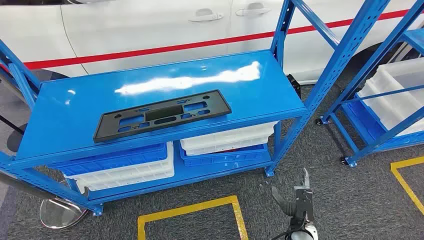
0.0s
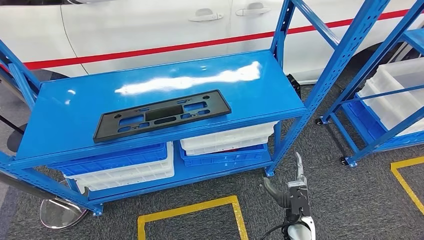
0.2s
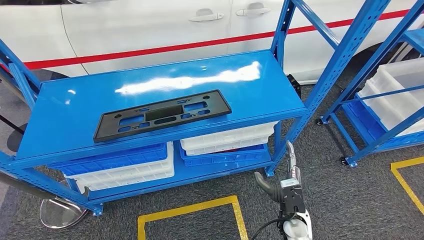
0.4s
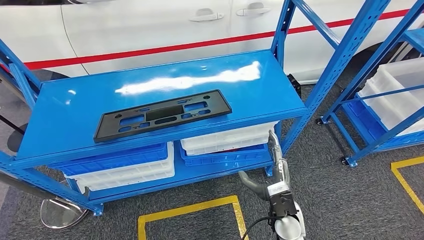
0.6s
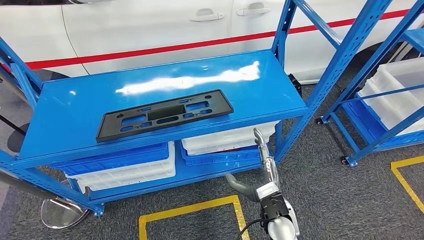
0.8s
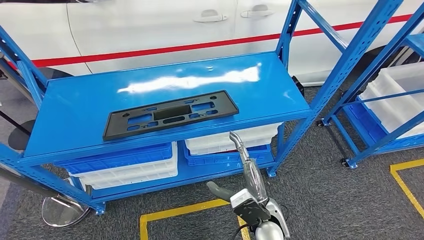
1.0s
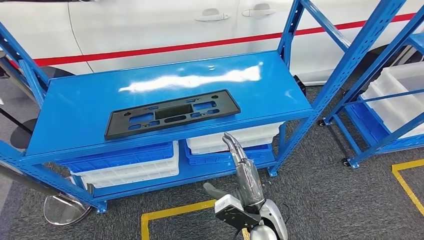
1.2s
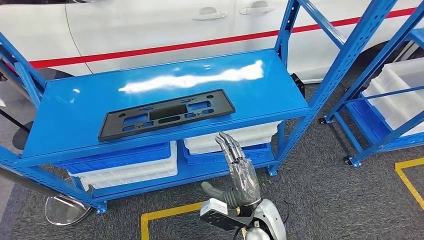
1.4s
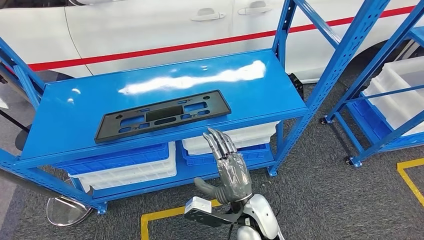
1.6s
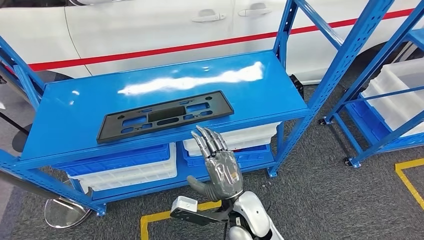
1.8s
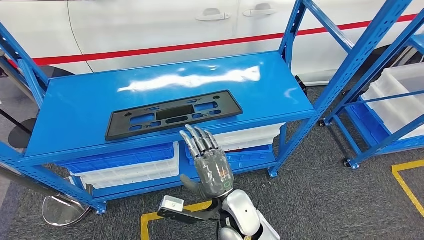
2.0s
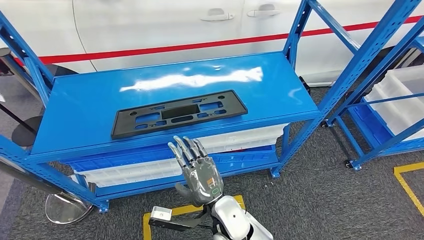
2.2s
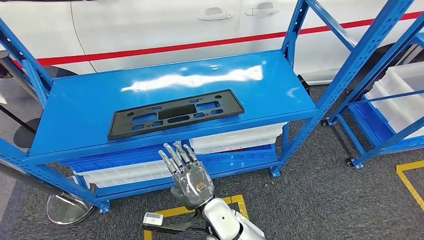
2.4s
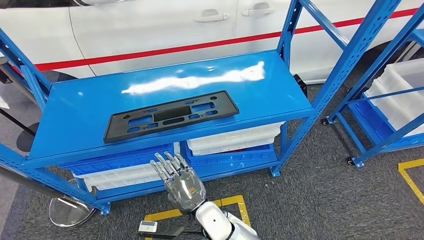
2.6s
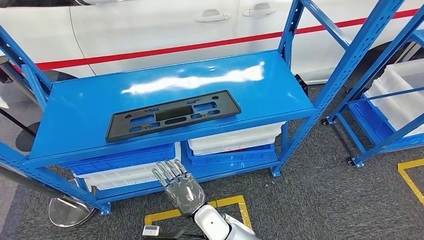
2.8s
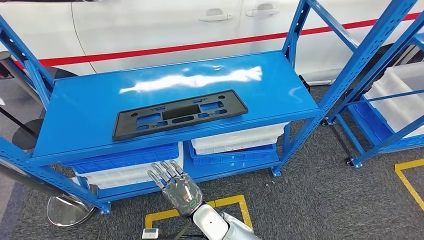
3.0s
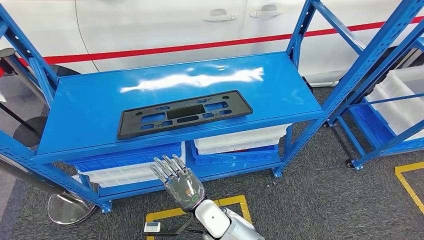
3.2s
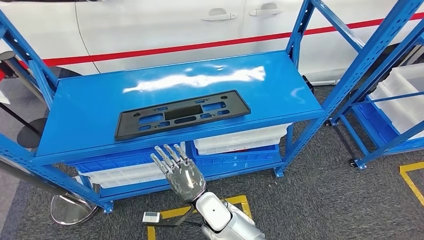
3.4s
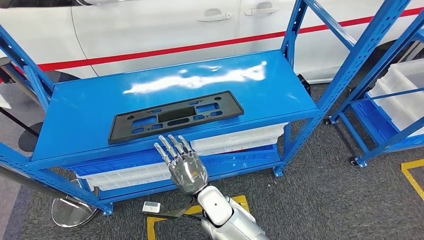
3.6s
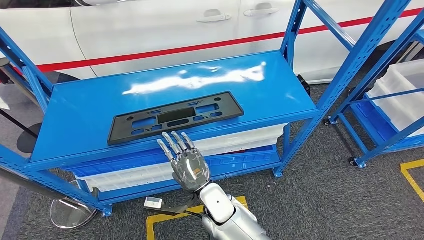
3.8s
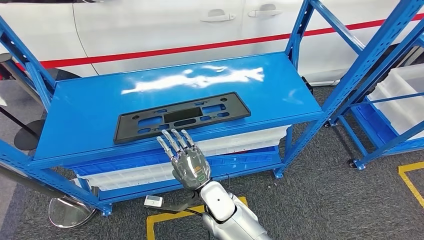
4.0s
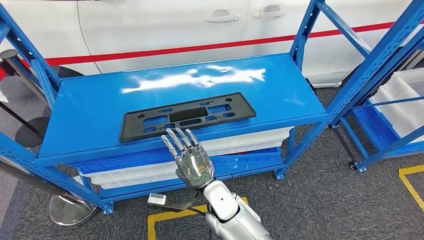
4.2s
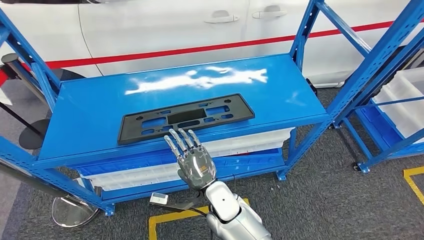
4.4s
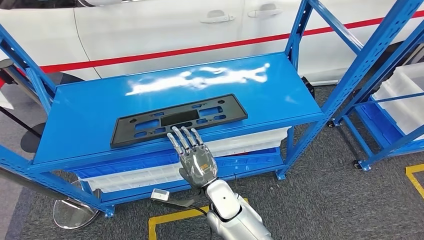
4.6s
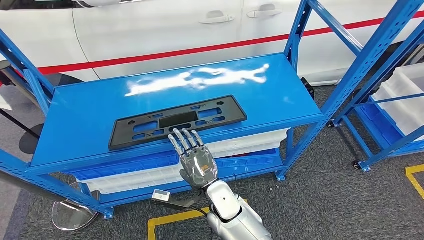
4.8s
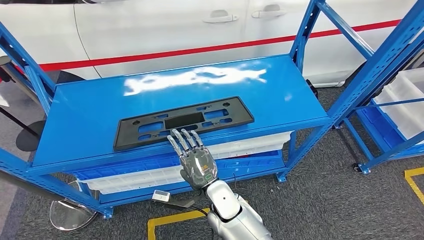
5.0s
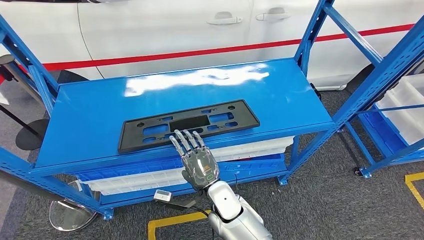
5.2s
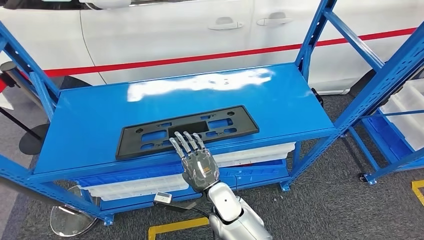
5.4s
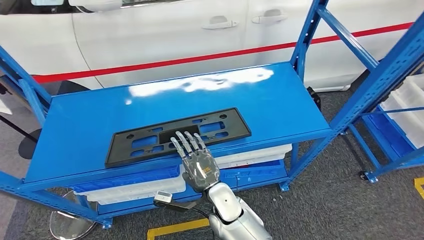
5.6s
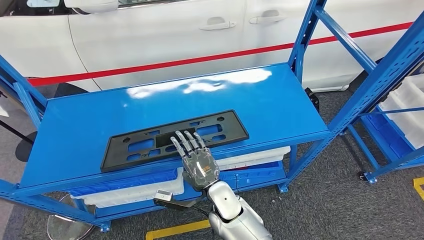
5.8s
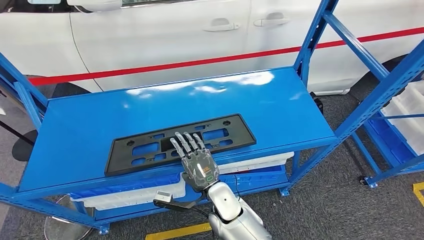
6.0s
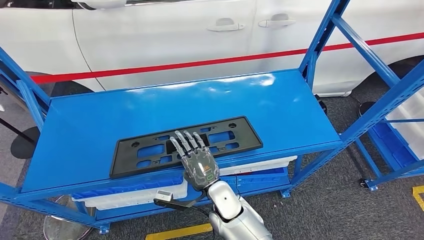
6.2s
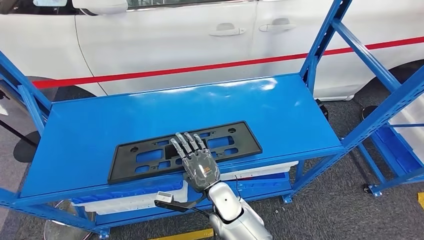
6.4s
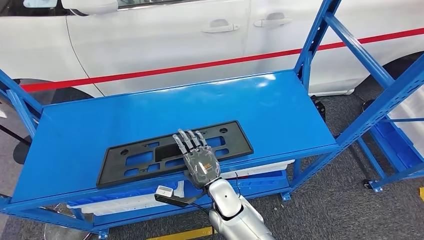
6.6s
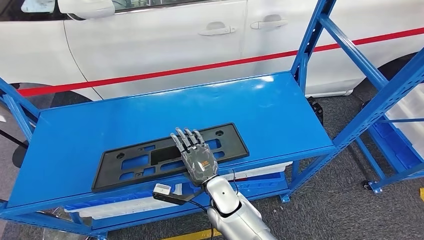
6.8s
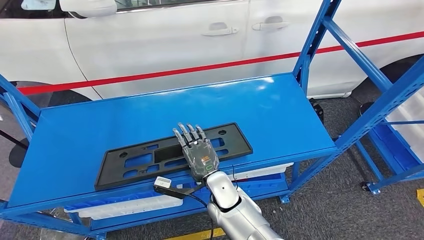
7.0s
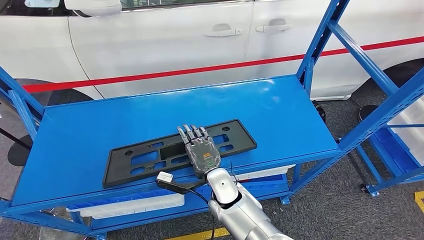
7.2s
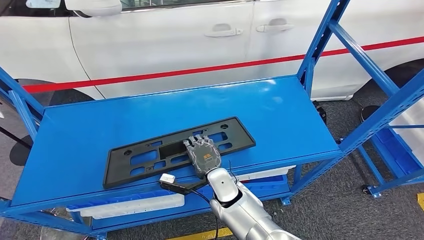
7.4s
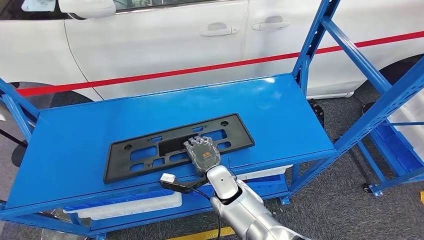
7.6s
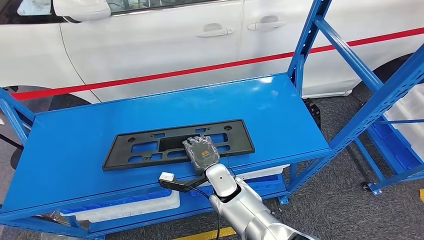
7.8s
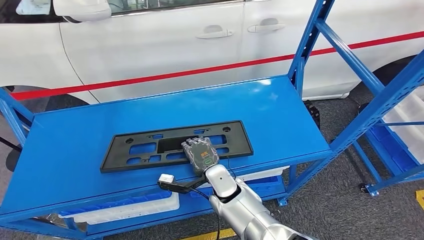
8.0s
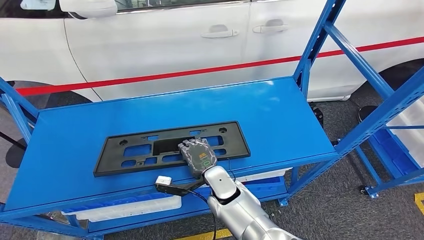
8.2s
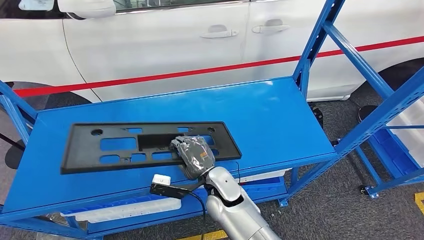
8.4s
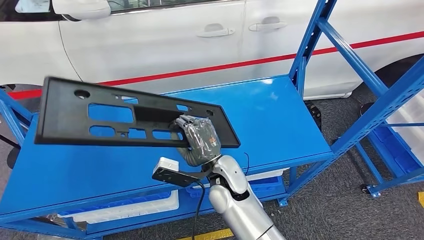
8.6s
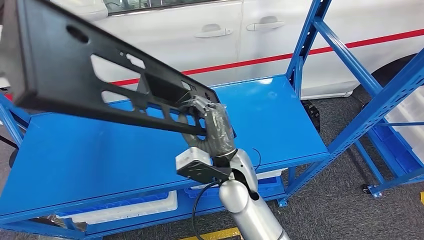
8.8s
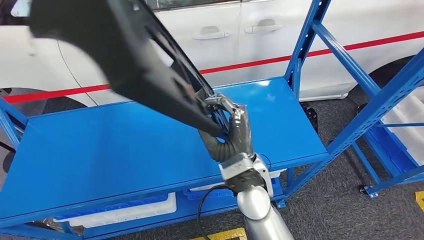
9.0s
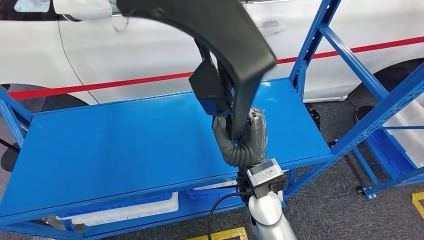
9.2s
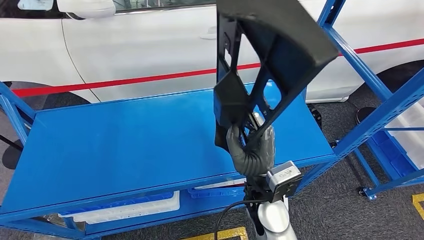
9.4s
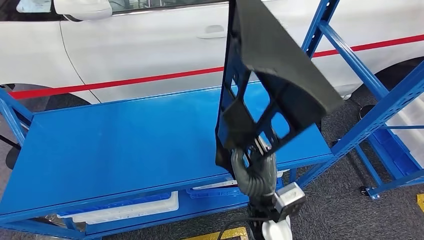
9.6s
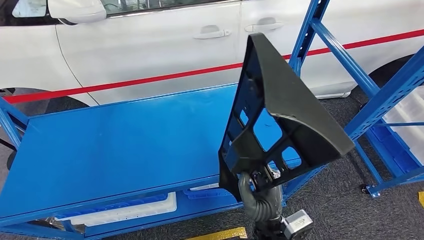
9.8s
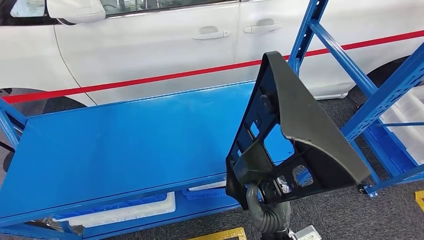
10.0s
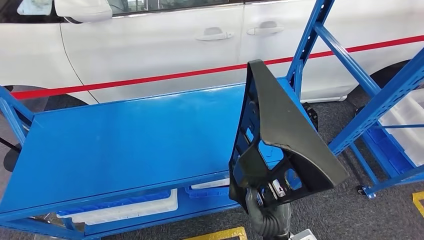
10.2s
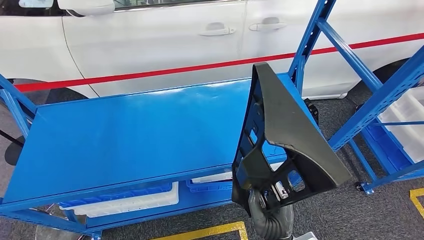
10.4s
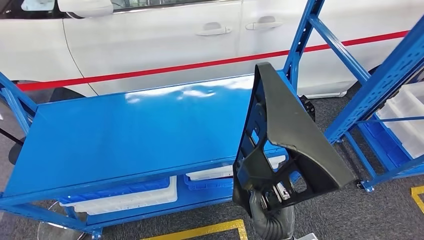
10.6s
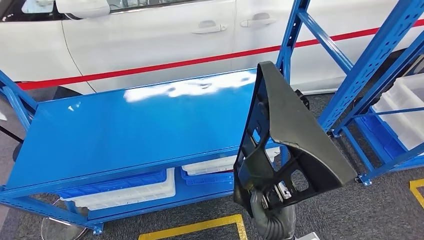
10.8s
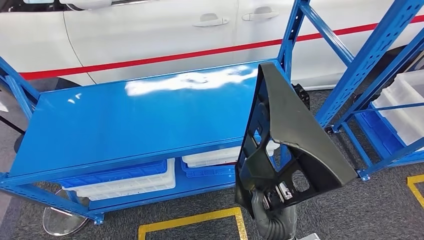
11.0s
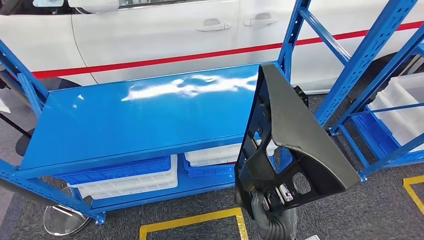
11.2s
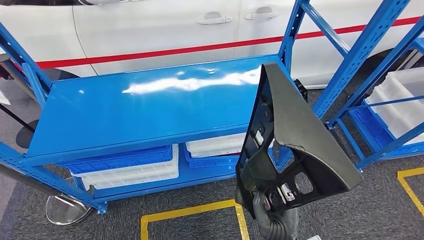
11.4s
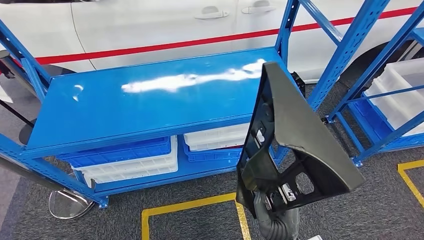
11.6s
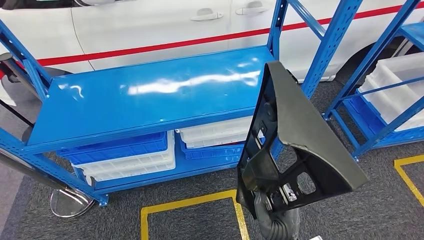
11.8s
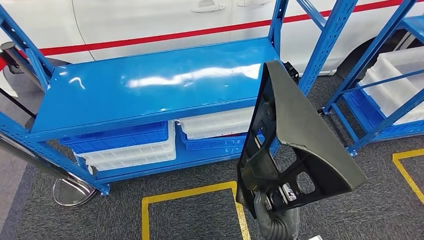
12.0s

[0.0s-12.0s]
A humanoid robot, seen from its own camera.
Step, 0.0s to 9.2s: Pick up the large material from the shelf.

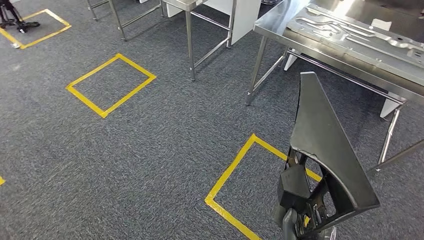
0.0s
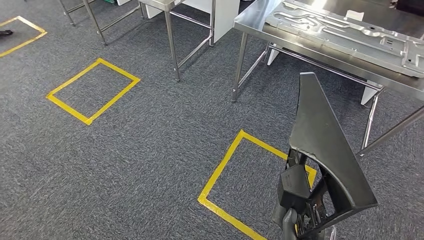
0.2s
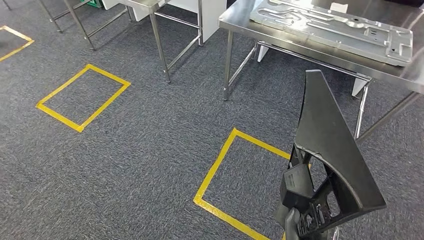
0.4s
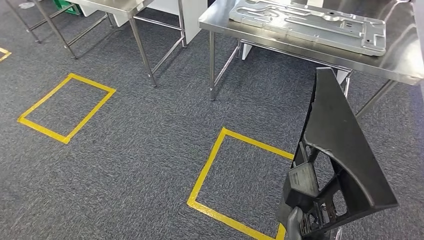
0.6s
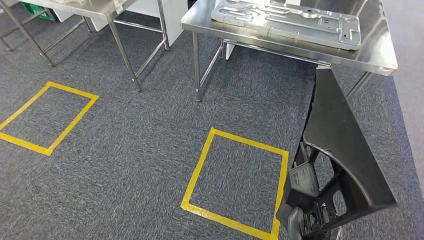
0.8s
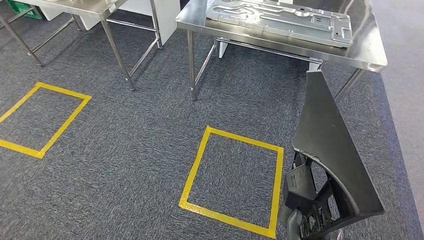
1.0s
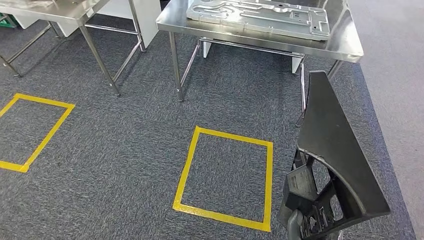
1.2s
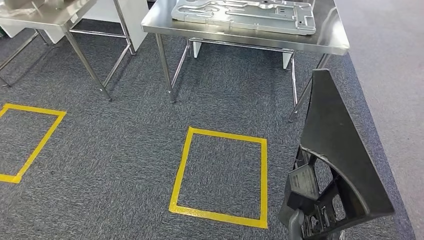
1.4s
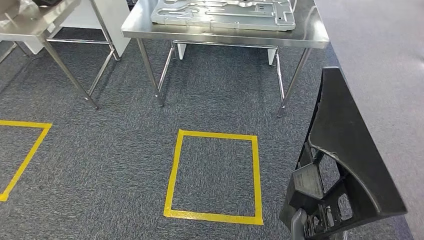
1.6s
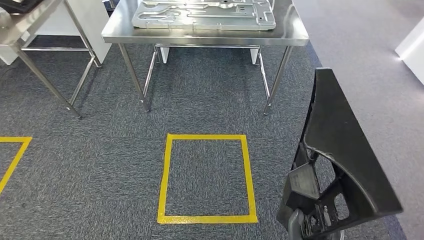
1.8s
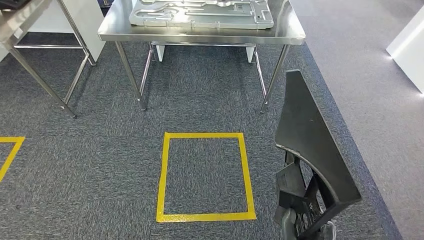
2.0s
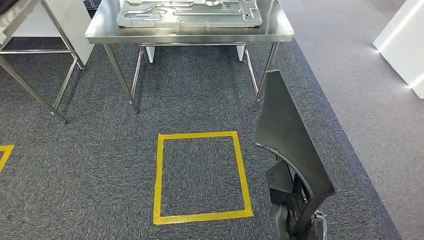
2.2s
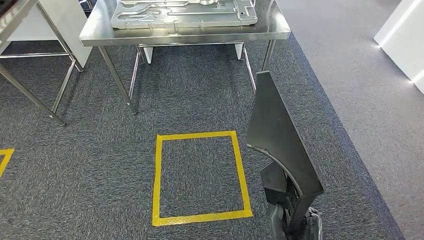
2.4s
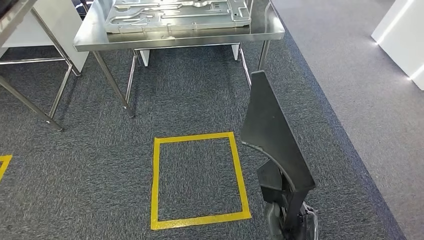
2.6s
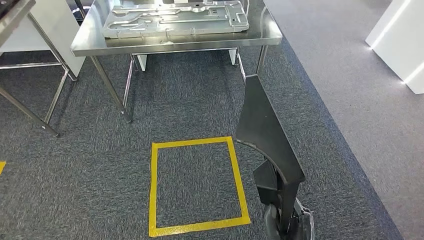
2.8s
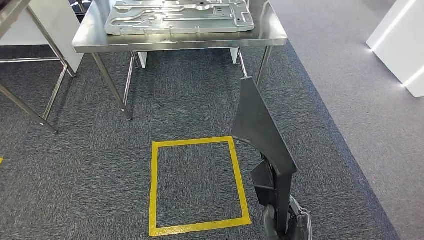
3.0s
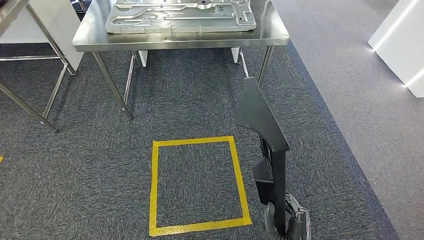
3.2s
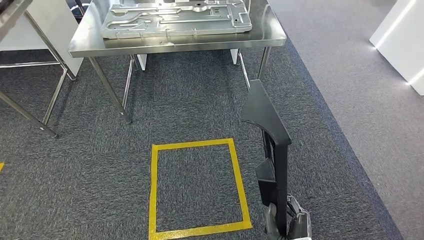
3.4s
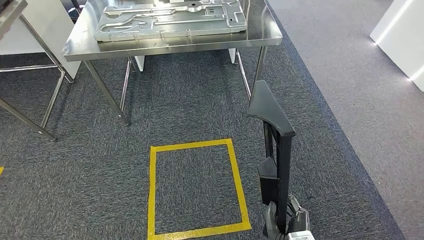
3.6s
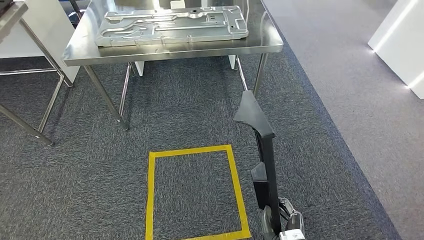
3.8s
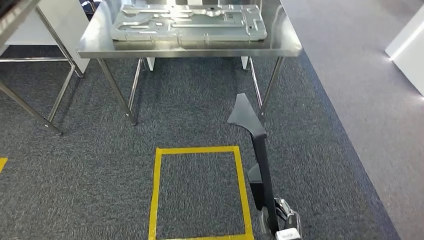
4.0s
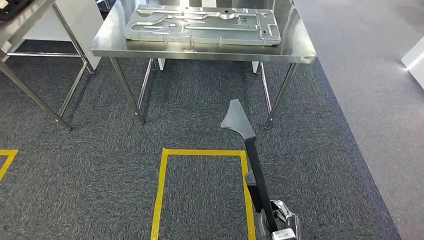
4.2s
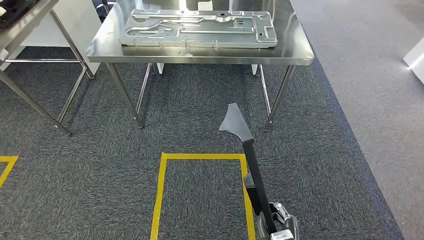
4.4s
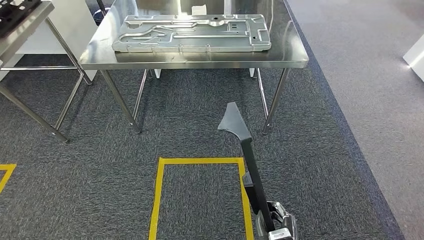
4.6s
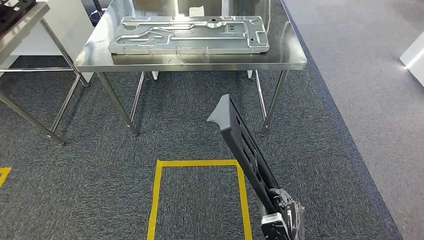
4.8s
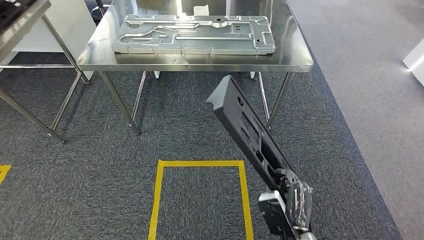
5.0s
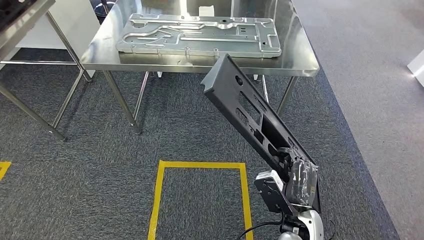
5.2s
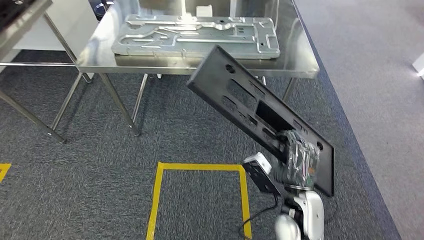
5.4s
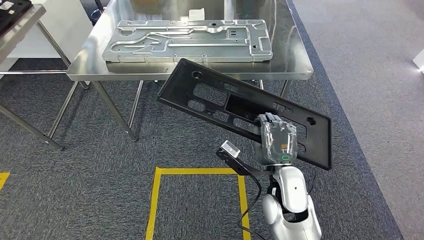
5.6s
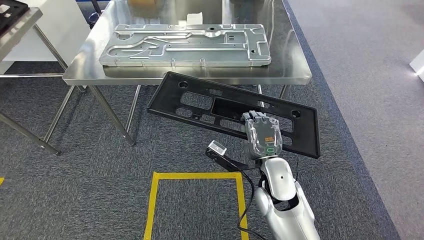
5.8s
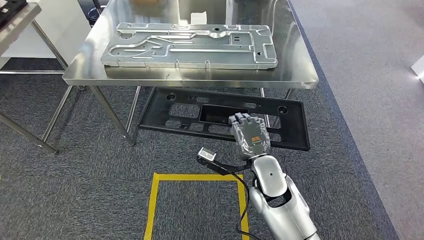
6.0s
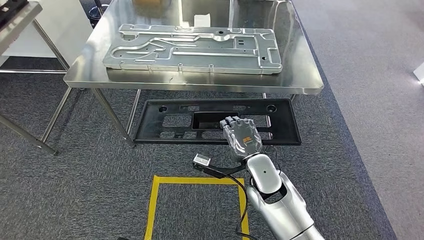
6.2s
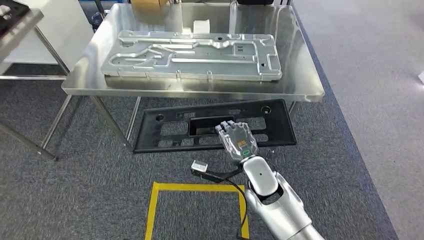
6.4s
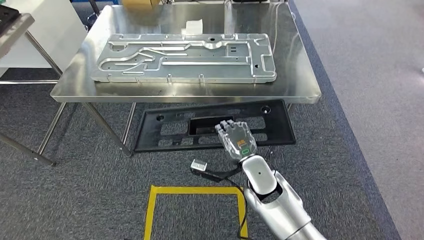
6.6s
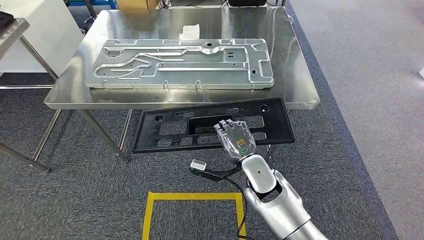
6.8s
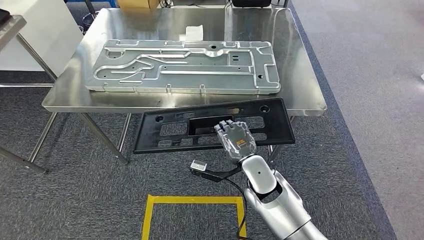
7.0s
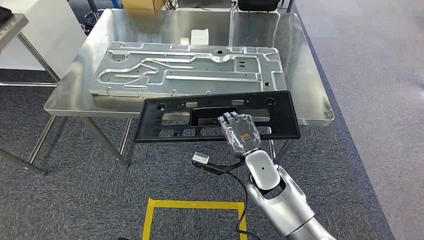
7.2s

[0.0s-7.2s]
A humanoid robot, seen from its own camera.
Step, 0.0s to 2.4s: Move the large material to the workbench.
